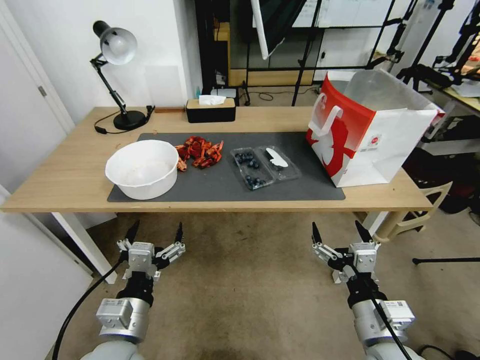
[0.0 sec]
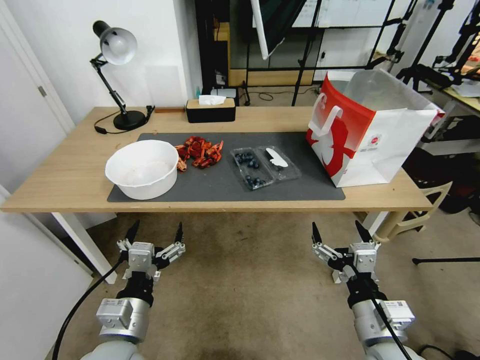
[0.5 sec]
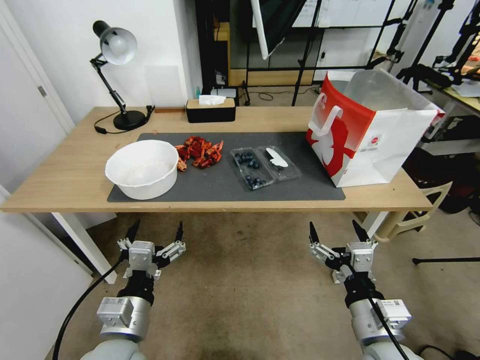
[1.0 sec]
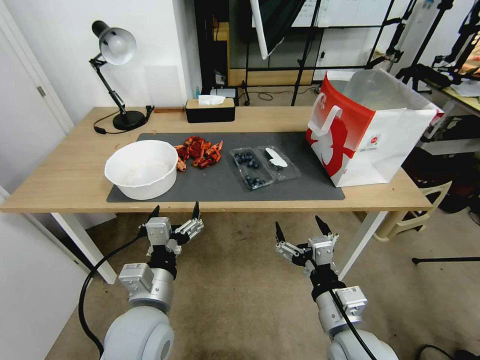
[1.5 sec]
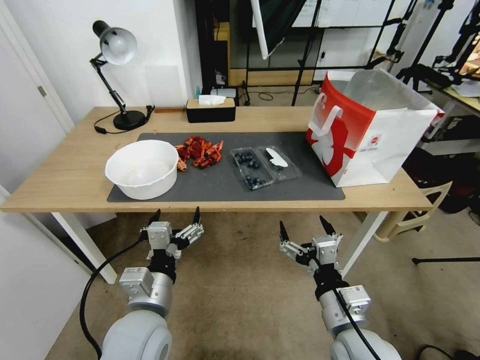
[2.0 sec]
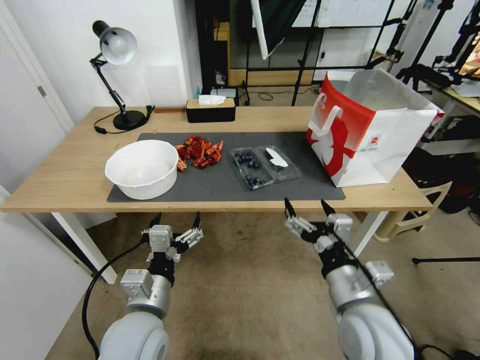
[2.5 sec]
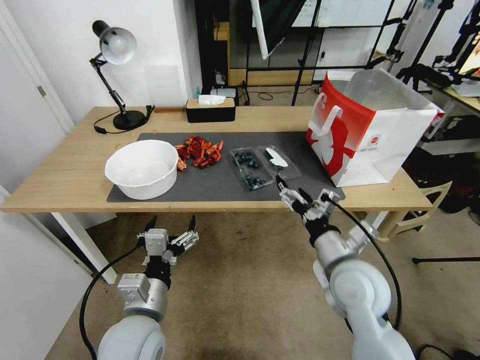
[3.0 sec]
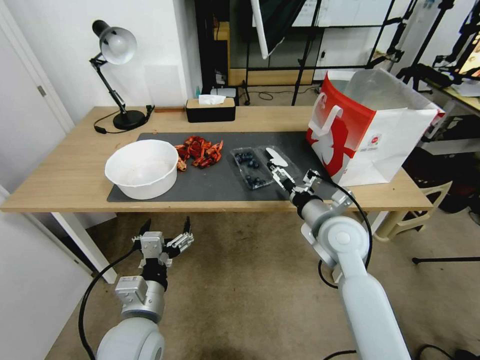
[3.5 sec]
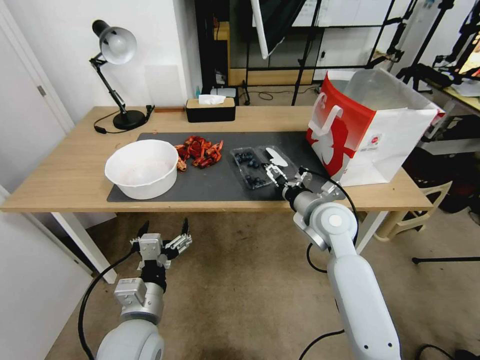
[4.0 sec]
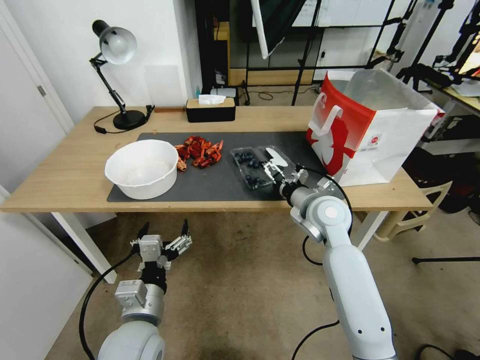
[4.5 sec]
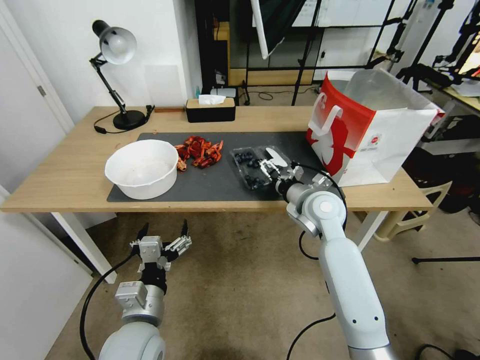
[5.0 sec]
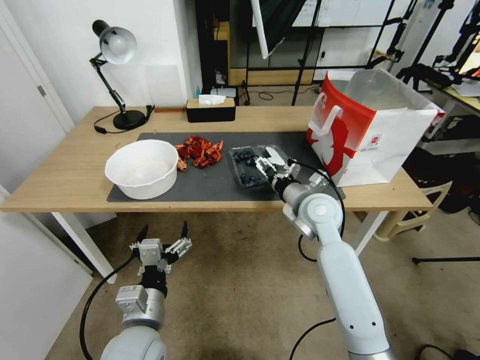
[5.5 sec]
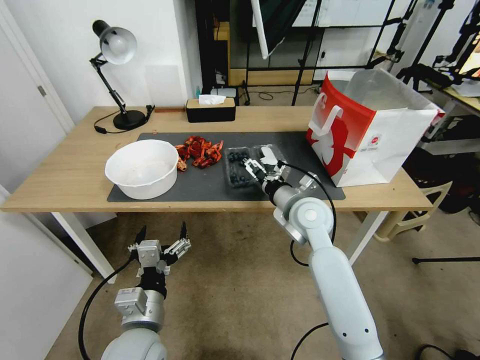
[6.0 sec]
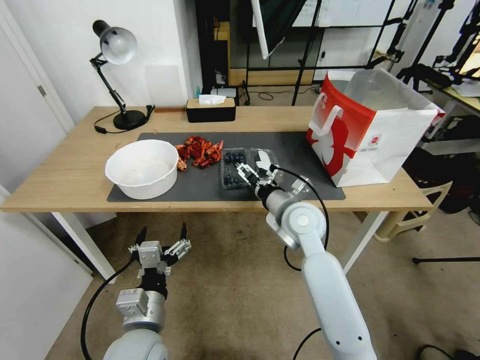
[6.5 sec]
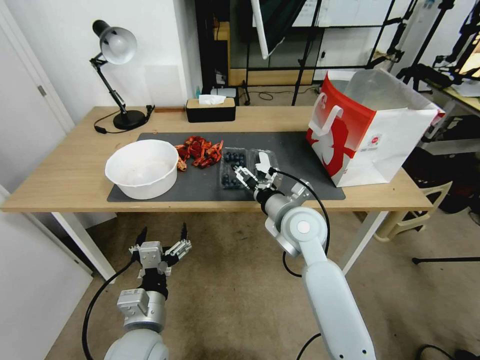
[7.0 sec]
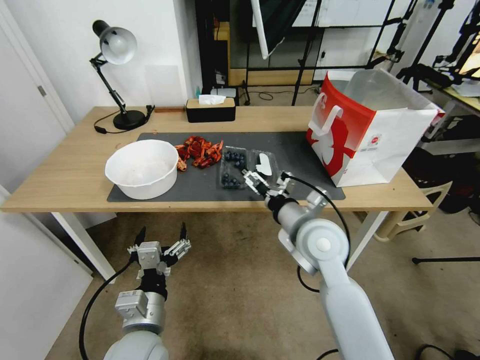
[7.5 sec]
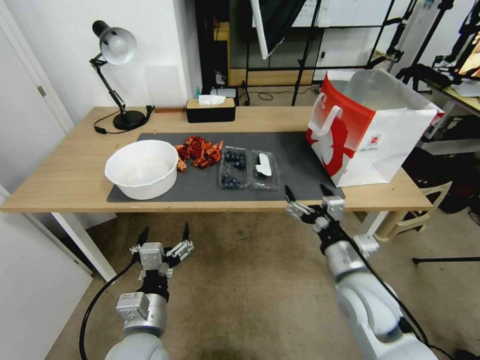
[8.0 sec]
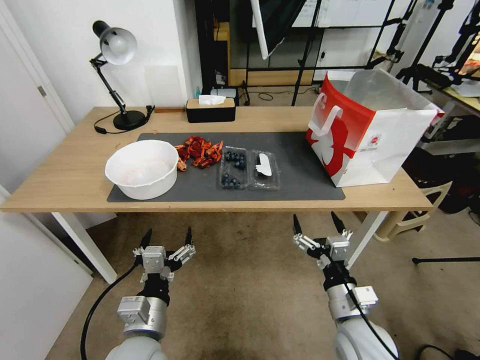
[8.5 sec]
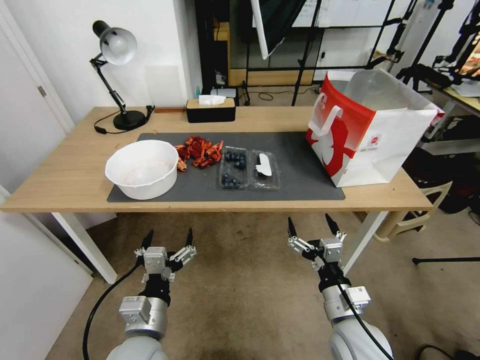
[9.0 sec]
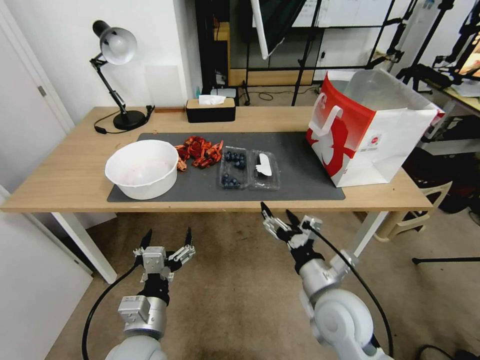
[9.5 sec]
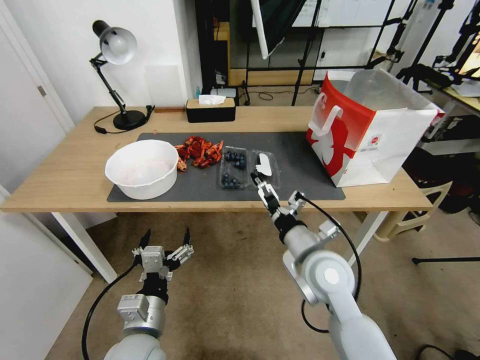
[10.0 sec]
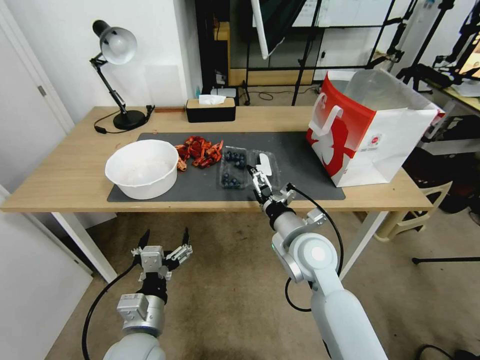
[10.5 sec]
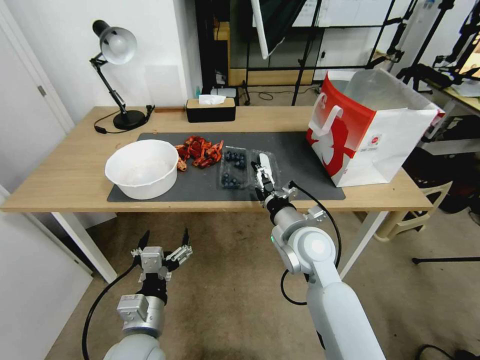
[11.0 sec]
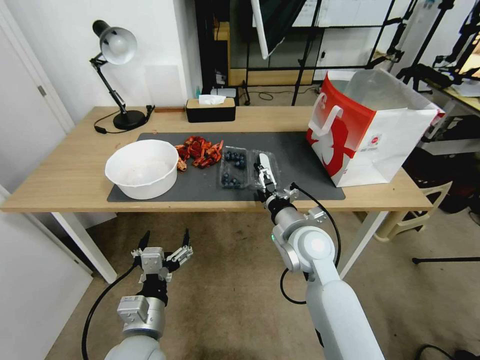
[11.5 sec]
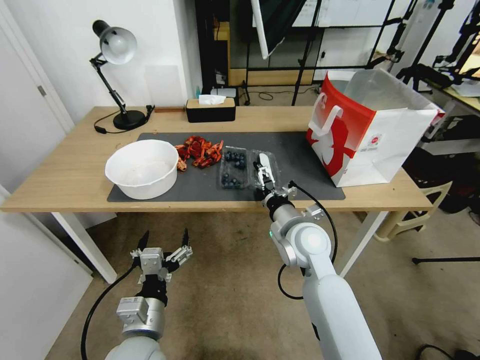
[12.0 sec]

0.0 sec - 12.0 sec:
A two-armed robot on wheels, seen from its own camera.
Task of the whole recording: Close the takeout container lid, then place the container into the takeout bag.
2.0 sec - 4.0 sec: The right gripper goes about 20 cm forward.
4.0 sec - 6.0 sec: The right gripper shifts by roughly 5 cm.
6.0 sec - 8.0 sec: The right gripper is displaced backward and to the right by approximately 15 cm.
8.0 sec - 10.0 sec: The right gripper shifts roughly 5 cm to the left.
10.0 sec - 12.0 sec: The right gripper travels forward by approximately 5 cm.

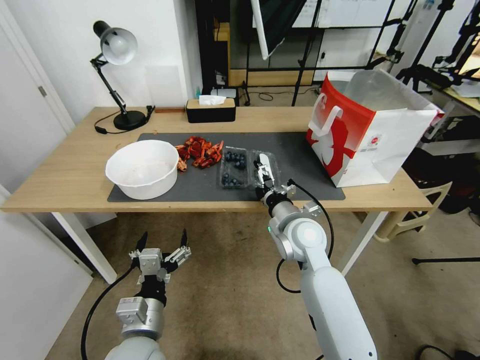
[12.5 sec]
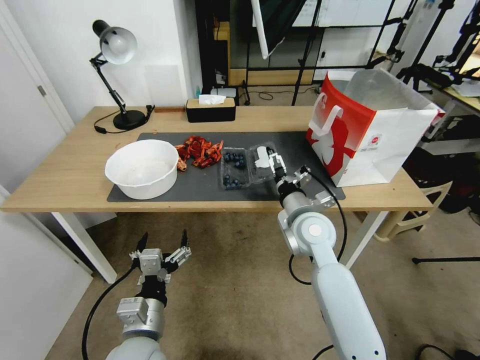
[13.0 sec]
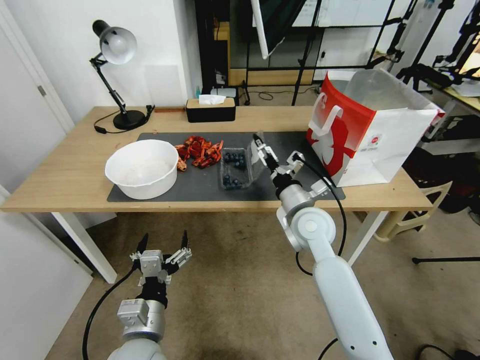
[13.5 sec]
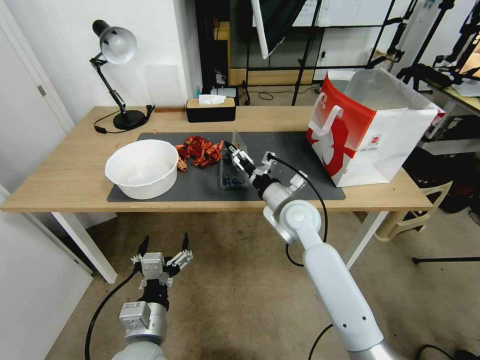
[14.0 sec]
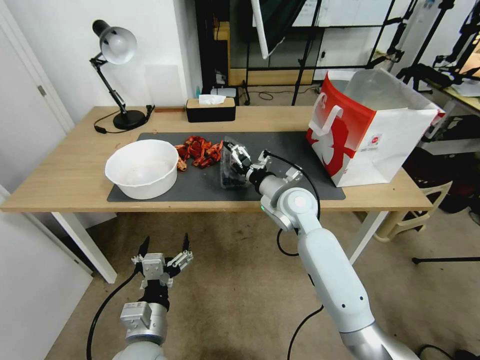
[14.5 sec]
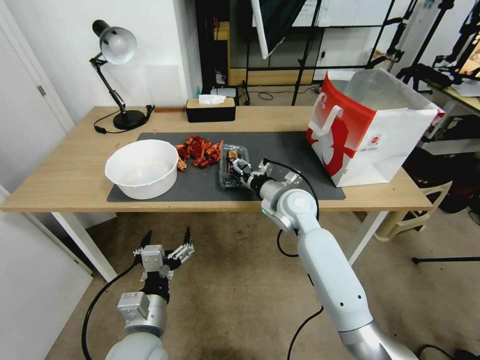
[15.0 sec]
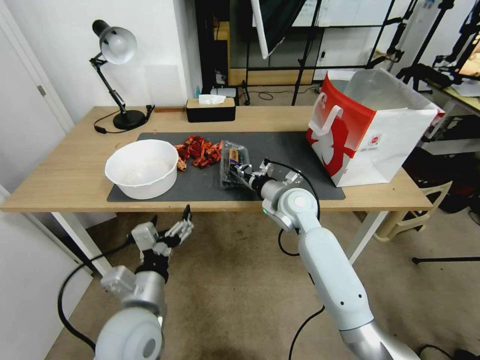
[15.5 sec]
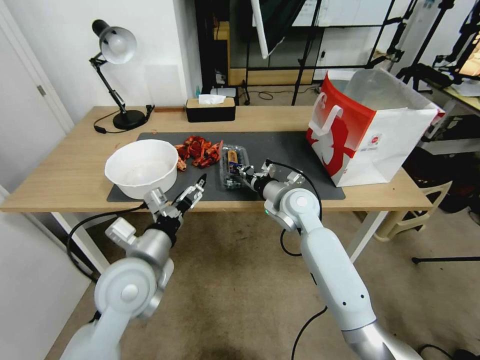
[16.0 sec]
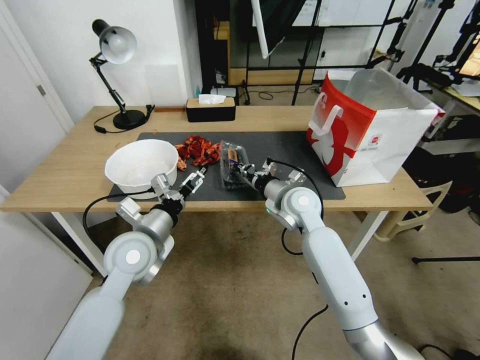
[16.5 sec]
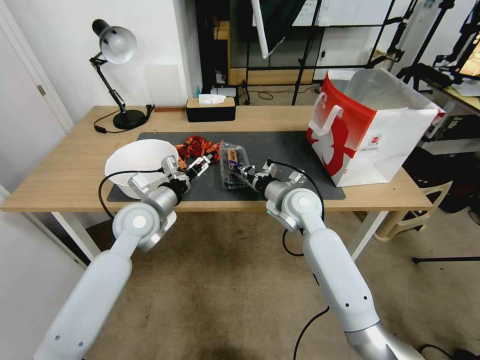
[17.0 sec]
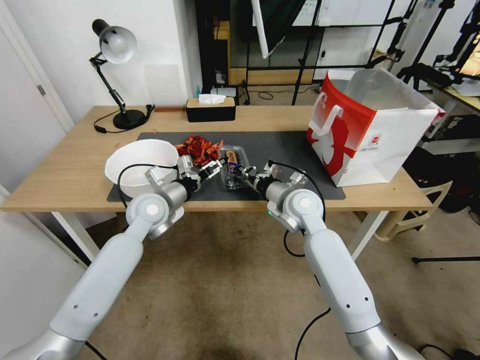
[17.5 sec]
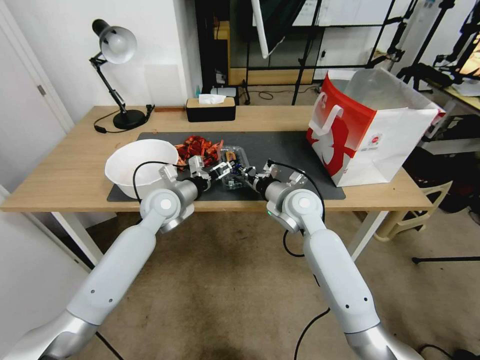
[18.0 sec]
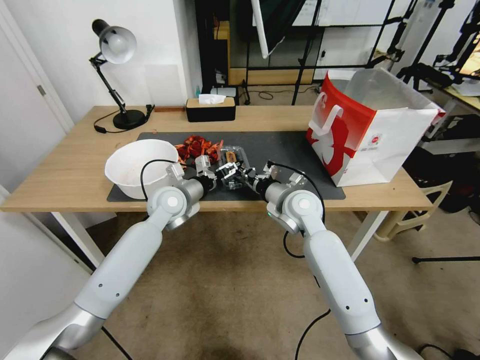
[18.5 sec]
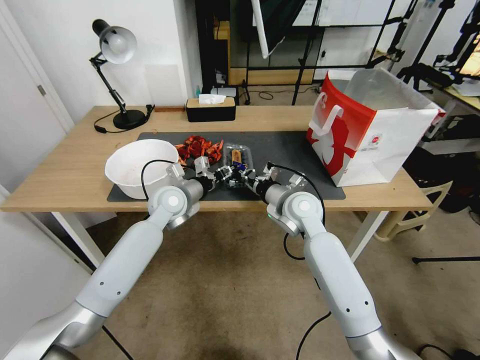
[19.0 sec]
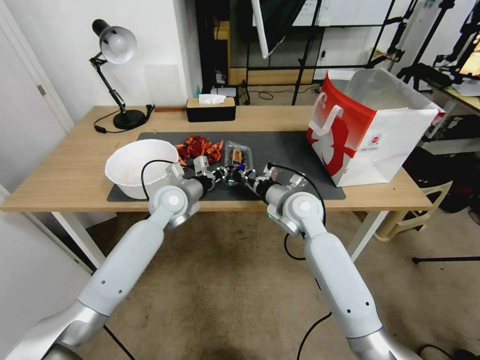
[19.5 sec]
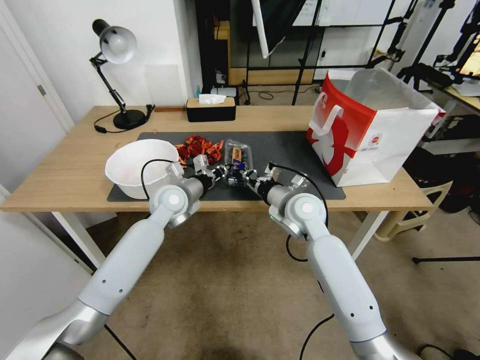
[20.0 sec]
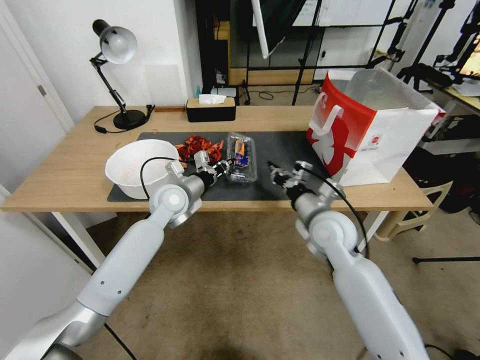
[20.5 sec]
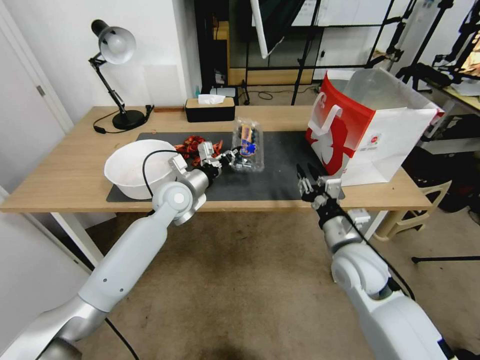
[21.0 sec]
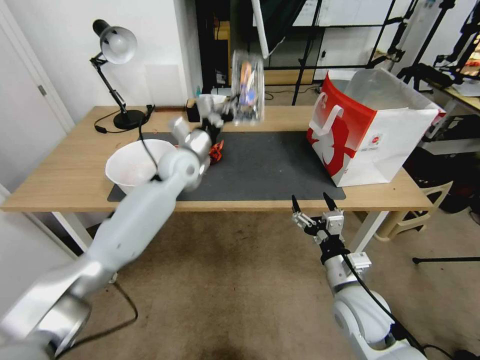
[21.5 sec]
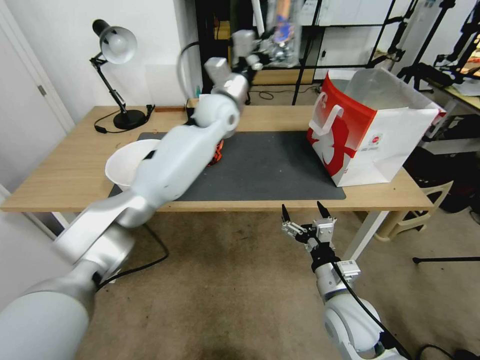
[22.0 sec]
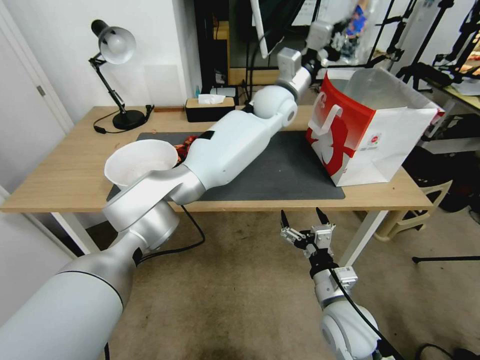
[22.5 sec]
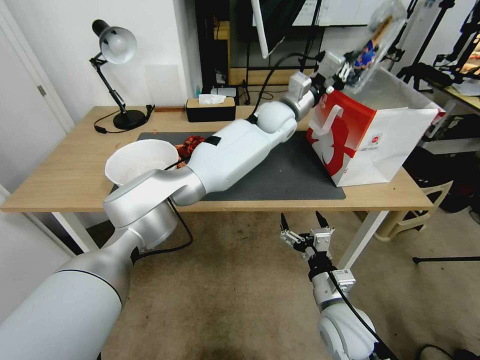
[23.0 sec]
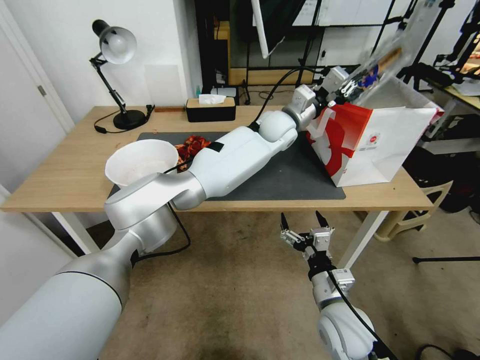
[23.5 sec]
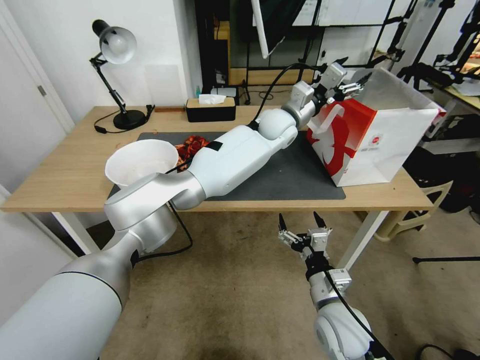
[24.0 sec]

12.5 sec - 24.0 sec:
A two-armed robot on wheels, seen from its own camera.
Task of the whole recording: Close the takeout container lid, then place the container into the takeout bag.
12.5 sec - 14.5 sec: The right gripper goes roughly 5 cm forward.
14.5 sec - 16.5 sec: The right gripper closes, while the left gripper shifts about 20 cm forward and upward.
16.5 sec - 18.5 sec: The left gripper heads forward, covering approximately 15 cm.
18.5 sec - 20.0 sec: The left gripper closes its fingers.
20.0 sec - 22.0 sec: The left gripper travels upward, to the right and forward by roughly 25 cm. The right gripper shifts approximately 20 cm backward, and opens its fingers.
22.0 sec - 24.0 sec: The left gripper is displaced to the right by approximately 15 cm, and opens.

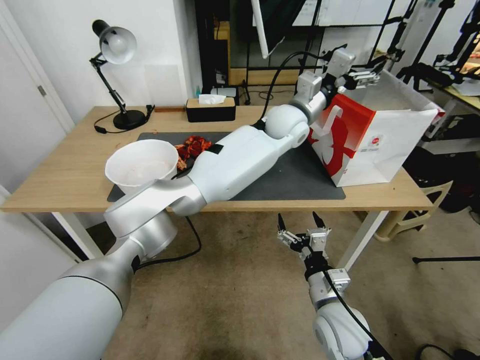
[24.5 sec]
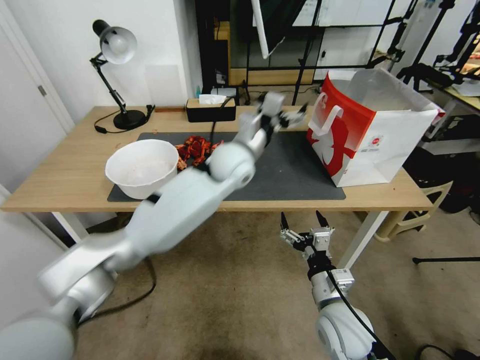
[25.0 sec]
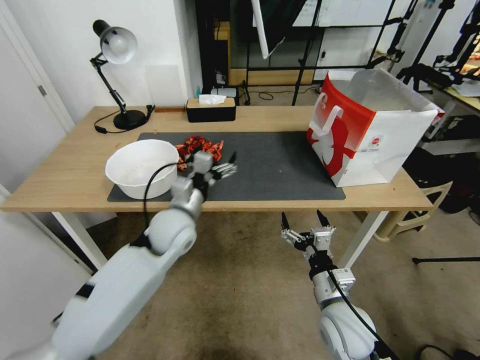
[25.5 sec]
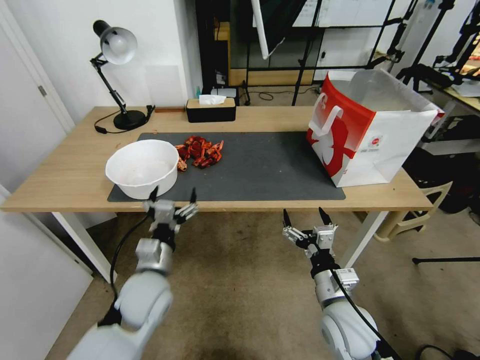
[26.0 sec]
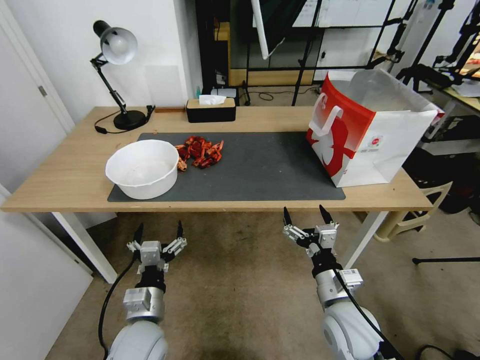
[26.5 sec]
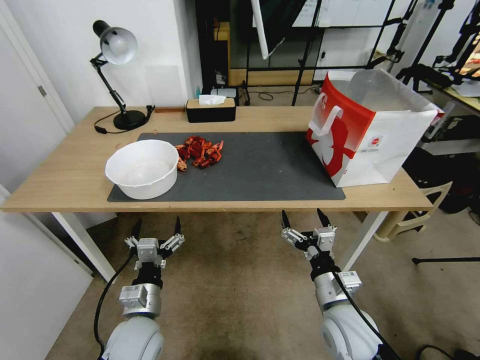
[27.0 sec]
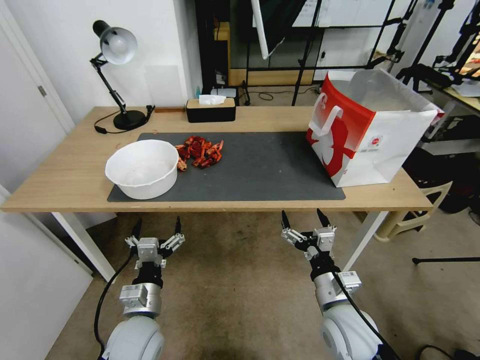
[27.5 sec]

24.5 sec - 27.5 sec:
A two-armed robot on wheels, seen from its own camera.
Task of the whole recording: Close the takeout container lid, then place the container into the takeout bag.
24.5 sec - 26.0 sec: The left gripper moves backward, to the left and downward, approximately 50 cm.
26.0 sec - 27.5 sec: The left gripper moves backward, roughly 5 cm.
